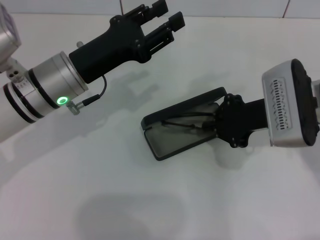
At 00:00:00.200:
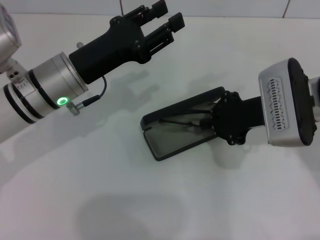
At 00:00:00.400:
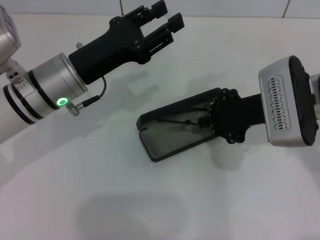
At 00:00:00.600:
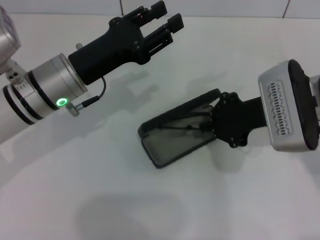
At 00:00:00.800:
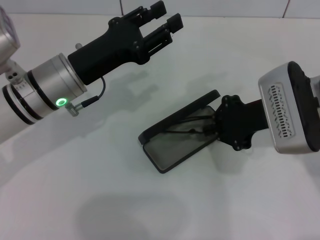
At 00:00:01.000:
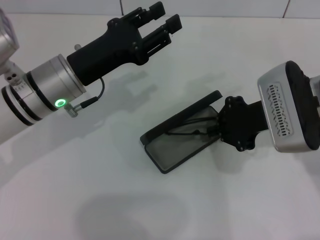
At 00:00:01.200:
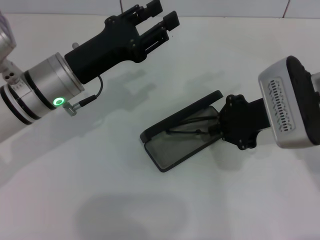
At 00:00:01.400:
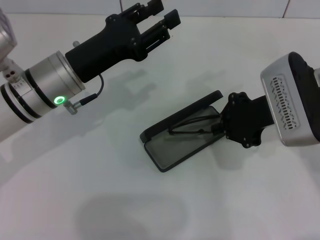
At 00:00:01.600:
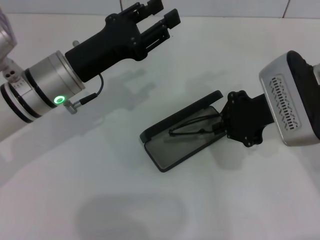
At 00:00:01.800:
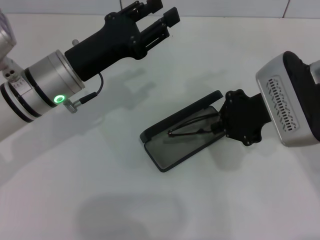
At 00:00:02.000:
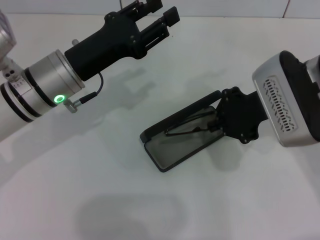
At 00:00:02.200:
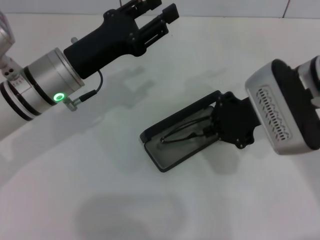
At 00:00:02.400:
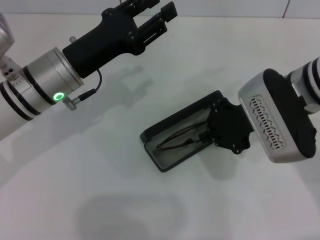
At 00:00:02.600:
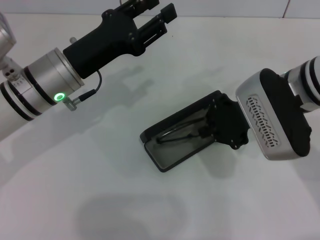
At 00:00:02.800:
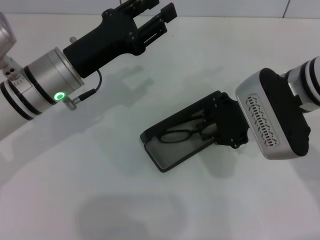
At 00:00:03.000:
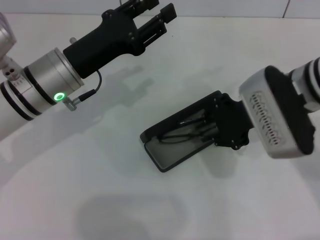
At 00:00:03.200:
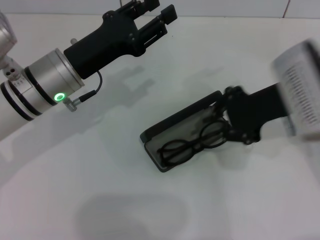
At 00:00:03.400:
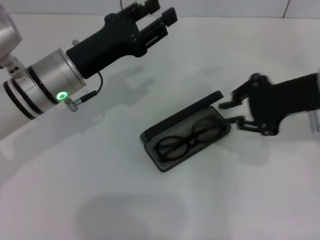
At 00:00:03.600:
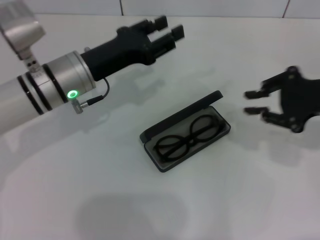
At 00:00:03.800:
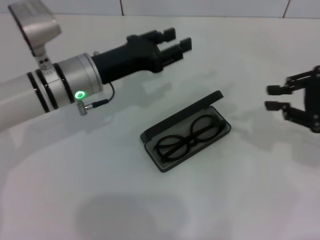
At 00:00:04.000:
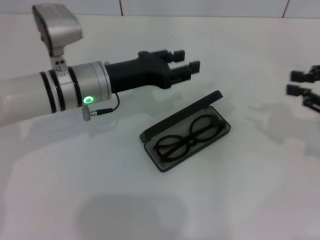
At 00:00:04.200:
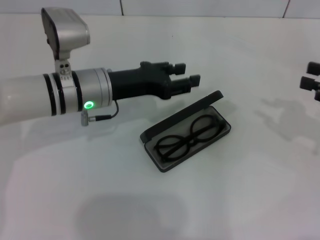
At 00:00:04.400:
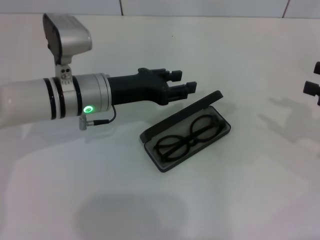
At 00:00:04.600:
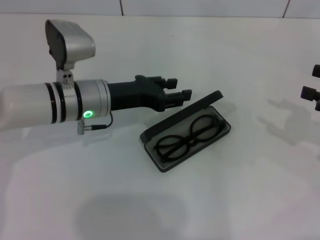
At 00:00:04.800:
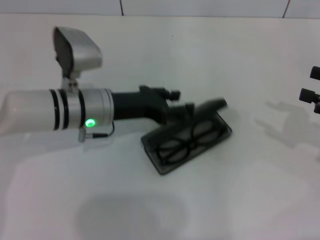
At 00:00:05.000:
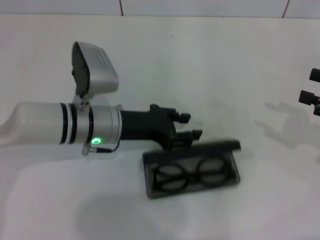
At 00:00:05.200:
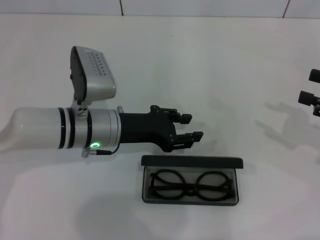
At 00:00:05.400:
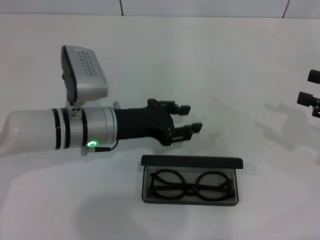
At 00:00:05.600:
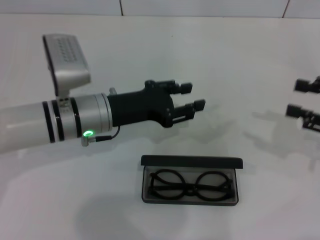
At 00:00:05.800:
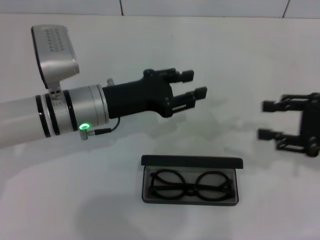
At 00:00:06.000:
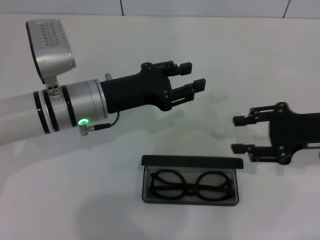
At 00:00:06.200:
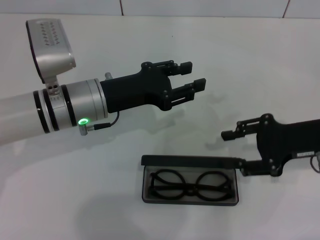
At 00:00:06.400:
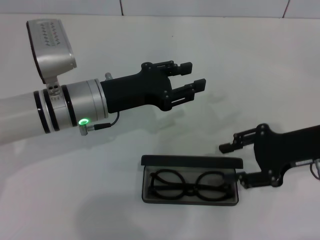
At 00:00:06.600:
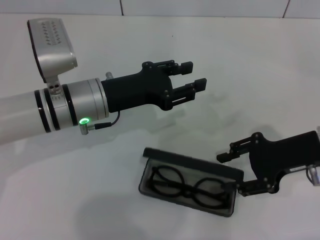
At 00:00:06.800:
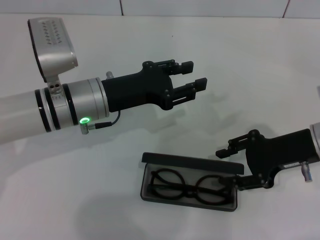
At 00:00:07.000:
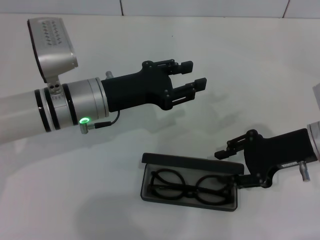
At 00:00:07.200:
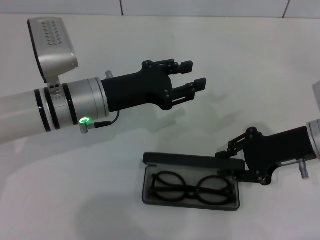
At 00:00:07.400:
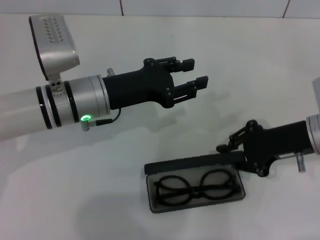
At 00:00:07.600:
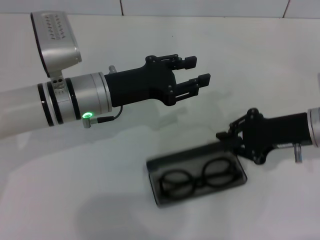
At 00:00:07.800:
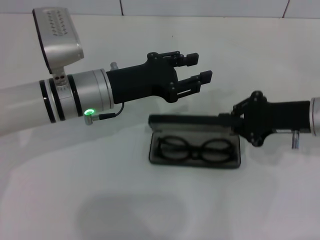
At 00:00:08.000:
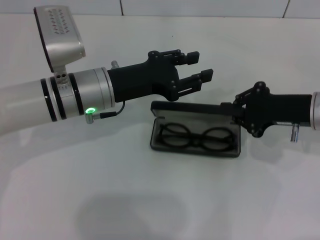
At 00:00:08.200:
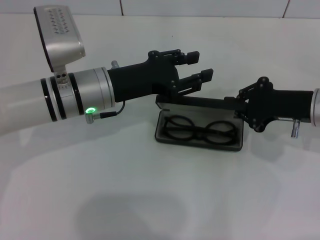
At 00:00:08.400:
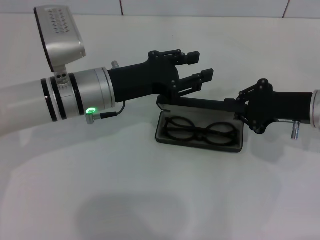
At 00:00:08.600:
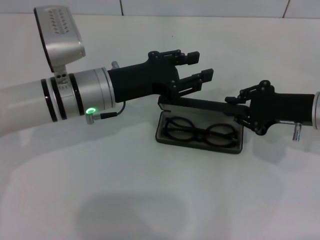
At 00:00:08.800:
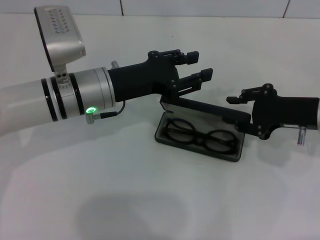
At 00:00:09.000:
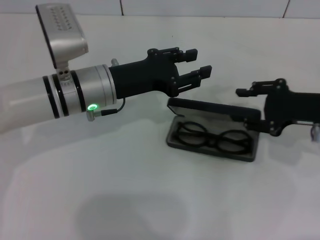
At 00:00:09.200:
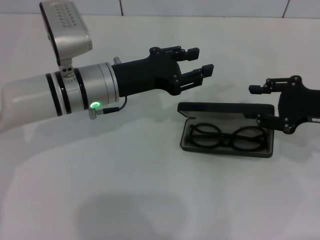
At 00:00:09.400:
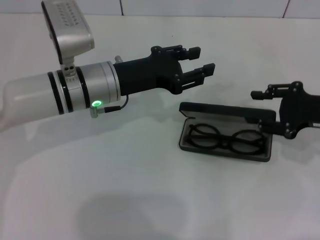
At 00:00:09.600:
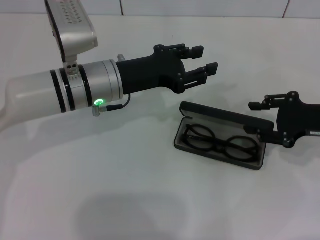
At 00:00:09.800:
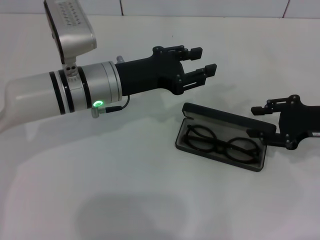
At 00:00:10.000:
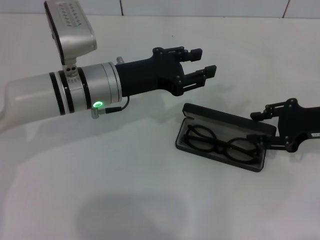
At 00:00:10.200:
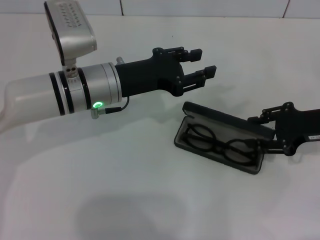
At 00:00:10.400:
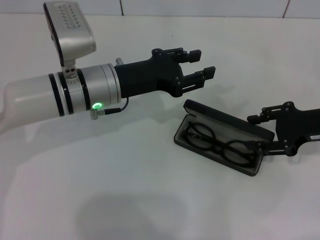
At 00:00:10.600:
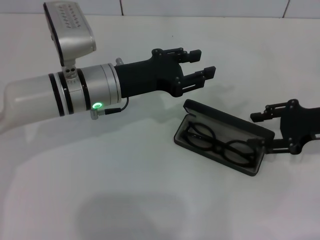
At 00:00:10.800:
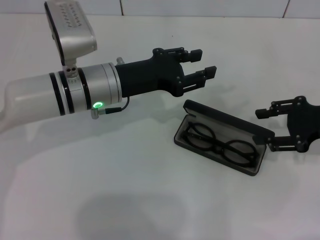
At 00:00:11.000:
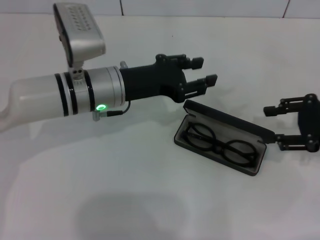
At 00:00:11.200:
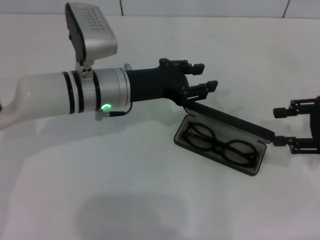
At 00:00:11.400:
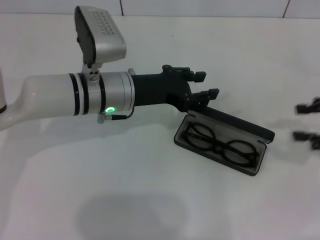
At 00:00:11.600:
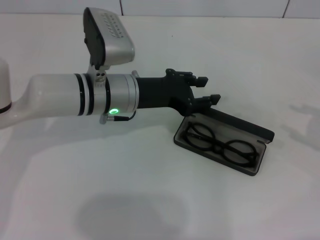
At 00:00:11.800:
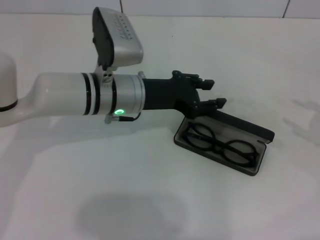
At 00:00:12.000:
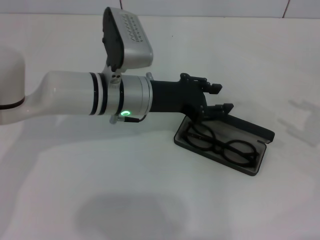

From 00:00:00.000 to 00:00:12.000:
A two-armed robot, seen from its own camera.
Step, from 00:00:00.000 to 00:00:03.400: Put the glasses into the case with your right hand.
From 00:00:00.000 to 00:00:01.600: The grippers make only small movements.
From 00:00:01.600 to 00:00:03.000: The grippers stay close to where they were, moving slightly.
From 00:00:03.000 to 00:00:04.400: The right gripper is displaced to the right by about 20 cm.
From 00:00:04.400 to 00:00:06.000: The right gripper moves to the left, about 10 cm.
From 00:00:06.000 to 00:00:07.600: The right gripper closes its fingers.
From 00:00:09.000 to 00:00:10.400: The grippers stay close to where they were, moving slightly.
From 00:00:10.400 to 00:00:12.000: The right gripper heads to the right and backward, covering approximately 10 cm.

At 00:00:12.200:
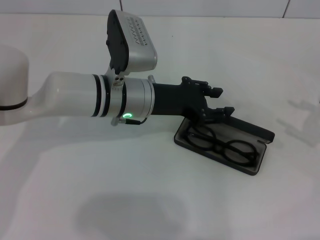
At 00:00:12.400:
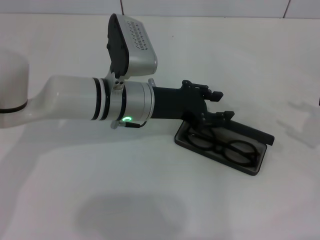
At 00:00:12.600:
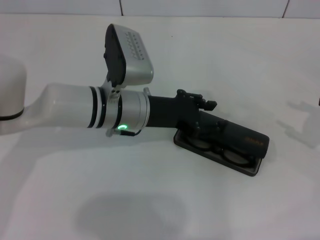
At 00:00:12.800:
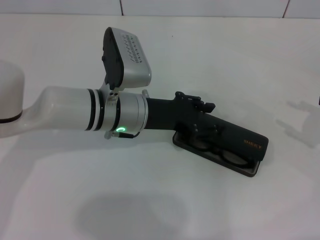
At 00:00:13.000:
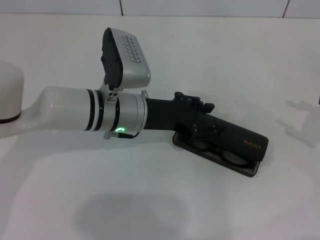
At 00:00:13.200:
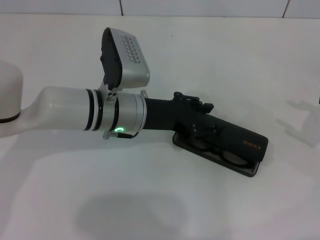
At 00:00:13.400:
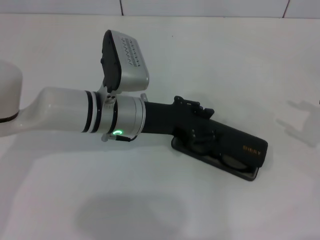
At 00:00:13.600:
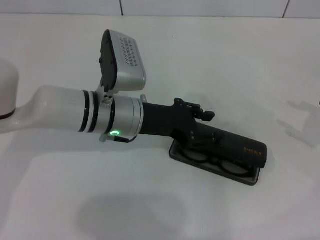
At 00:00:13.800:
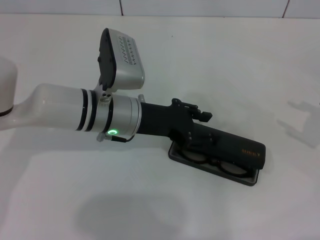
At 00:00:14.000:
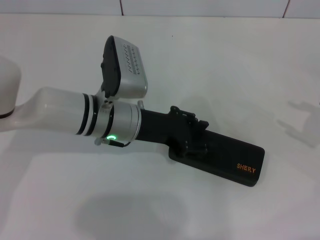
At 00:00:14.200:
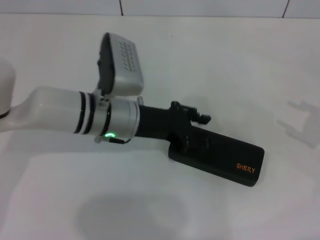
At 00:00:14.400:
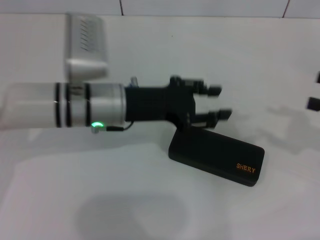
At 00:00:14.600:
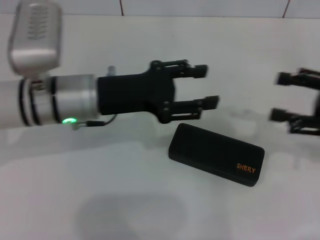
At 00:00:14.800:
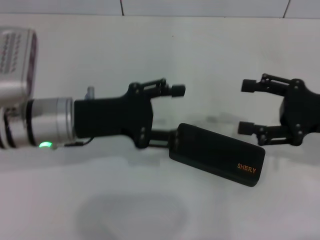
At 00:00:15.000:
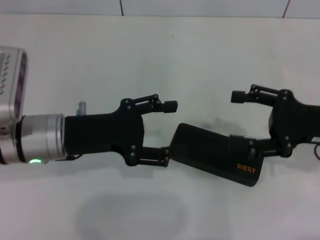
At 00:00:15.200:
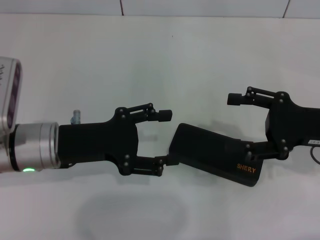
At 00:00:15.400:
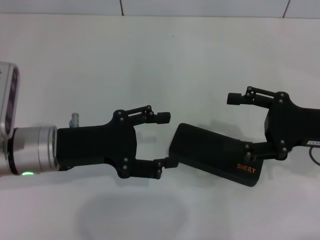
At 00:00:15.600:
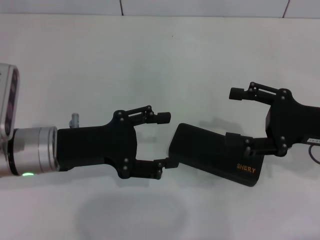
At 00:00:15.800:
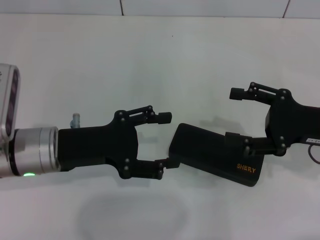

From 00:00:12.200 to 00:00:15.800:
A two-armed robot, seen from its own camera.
From 00:00:12.200 to 00:00:14.000: The grippers move only a little.
From 00:00:14.000 to 00:00:15.800: The right gripper goes about 10 cm to the left. Meanwhile the left gripper moves to the left and backward, about 10 cm, and opens.
